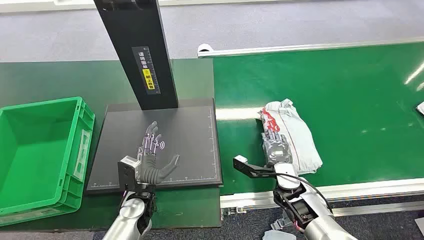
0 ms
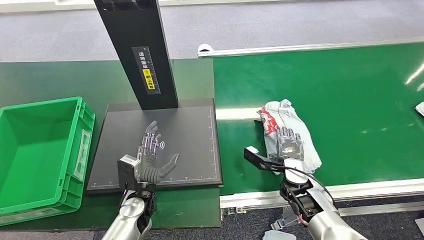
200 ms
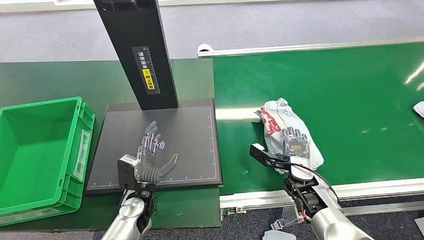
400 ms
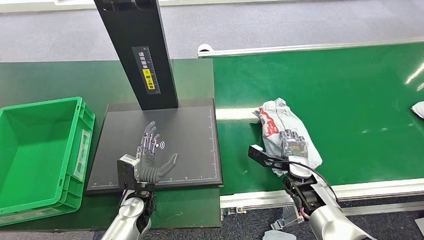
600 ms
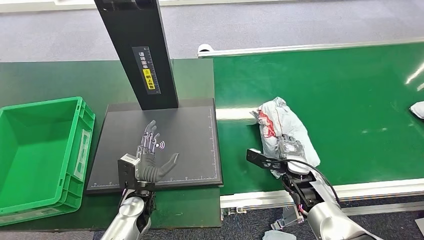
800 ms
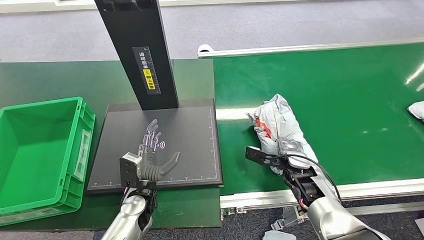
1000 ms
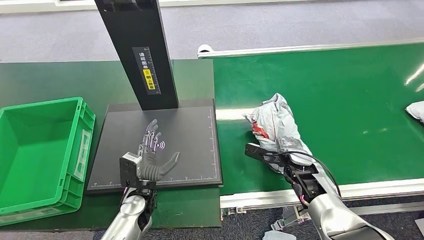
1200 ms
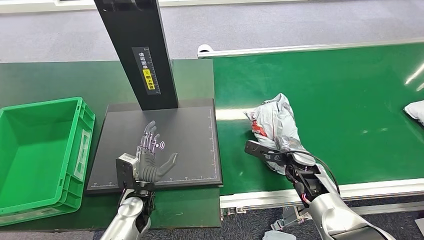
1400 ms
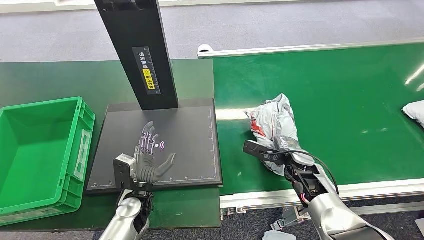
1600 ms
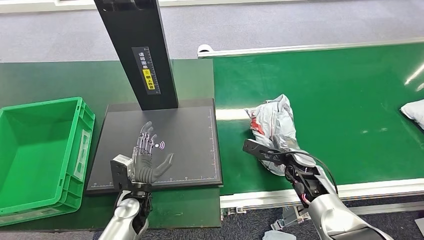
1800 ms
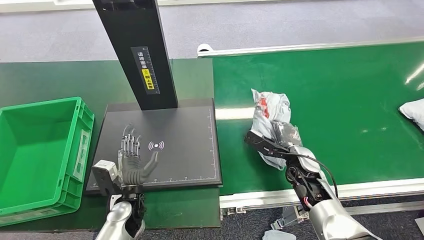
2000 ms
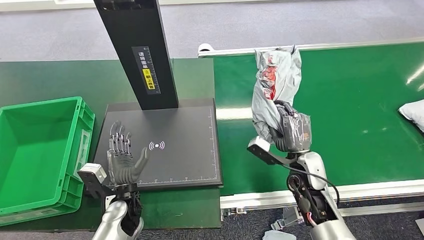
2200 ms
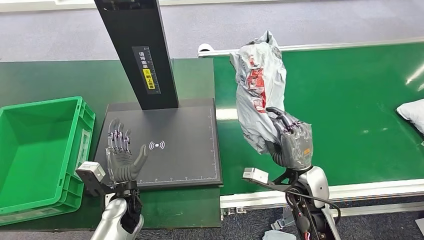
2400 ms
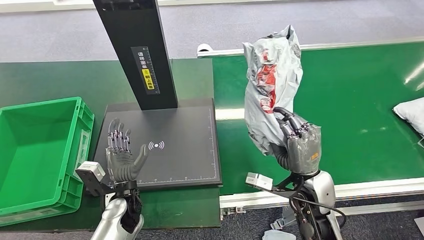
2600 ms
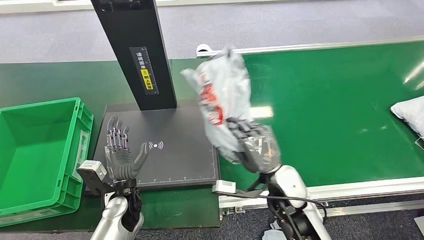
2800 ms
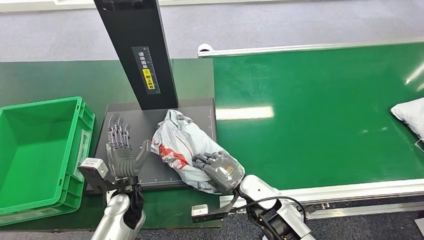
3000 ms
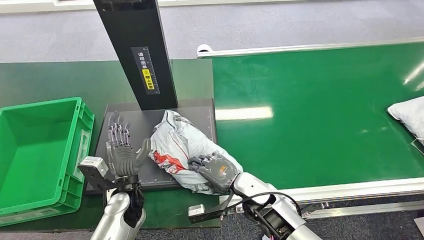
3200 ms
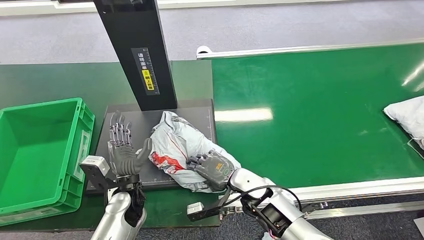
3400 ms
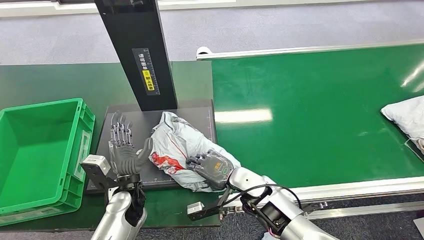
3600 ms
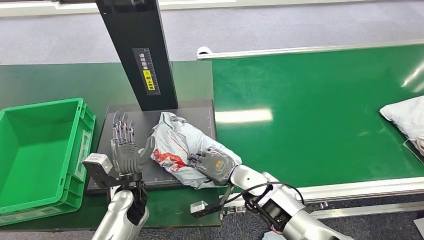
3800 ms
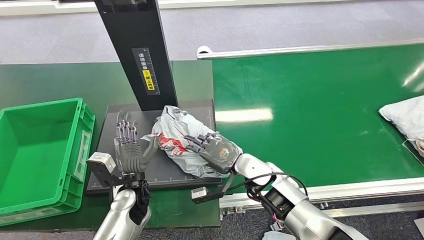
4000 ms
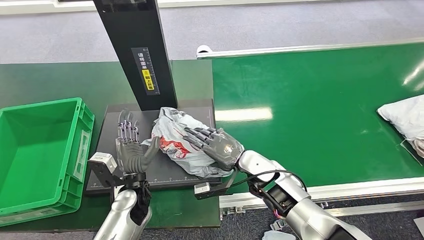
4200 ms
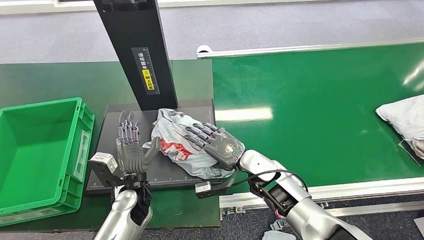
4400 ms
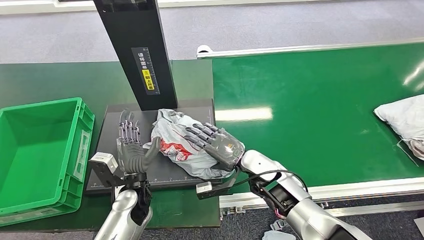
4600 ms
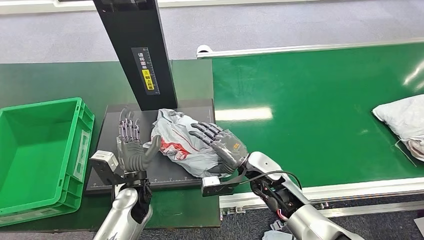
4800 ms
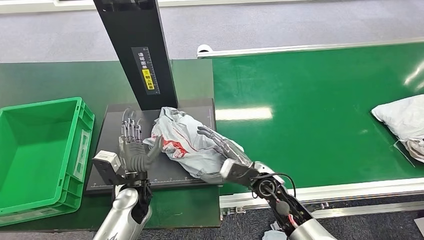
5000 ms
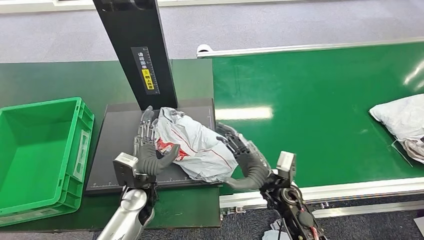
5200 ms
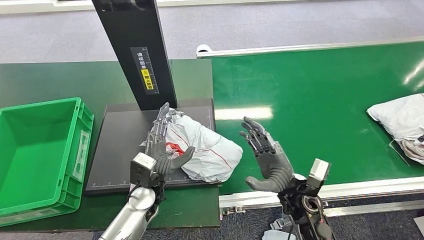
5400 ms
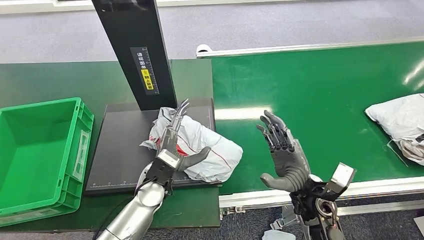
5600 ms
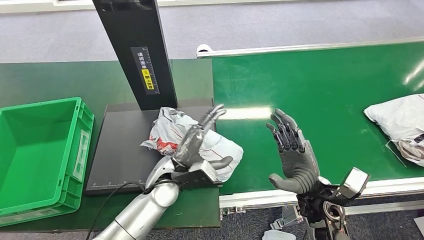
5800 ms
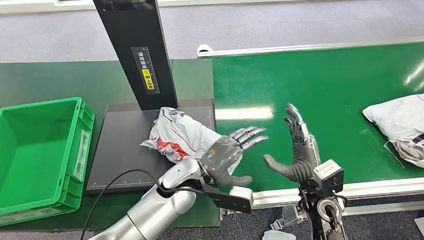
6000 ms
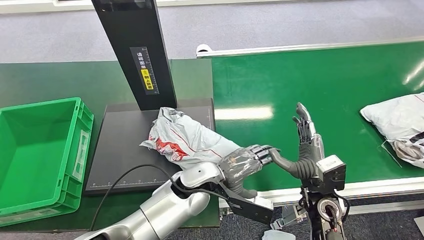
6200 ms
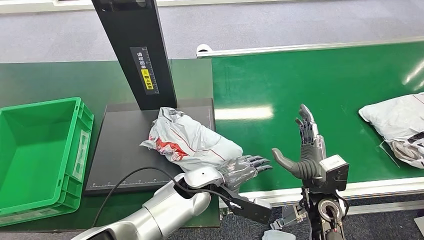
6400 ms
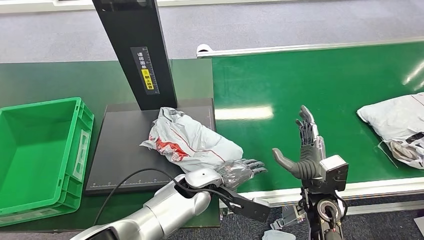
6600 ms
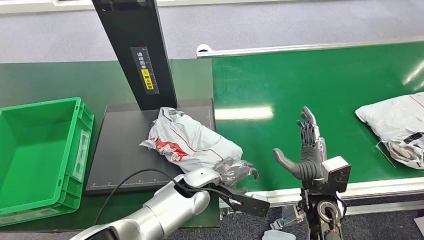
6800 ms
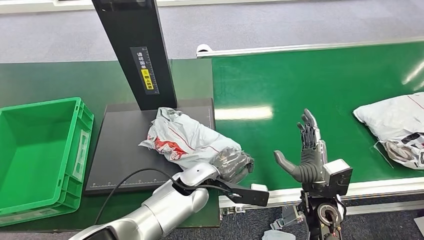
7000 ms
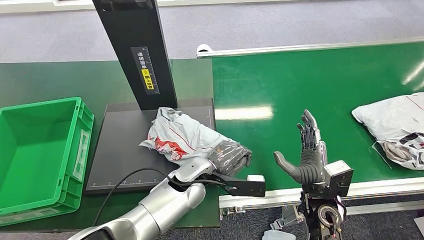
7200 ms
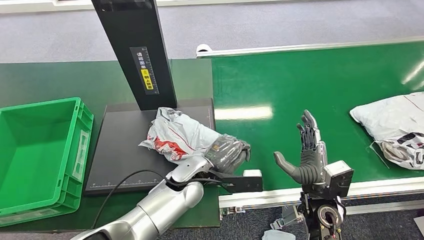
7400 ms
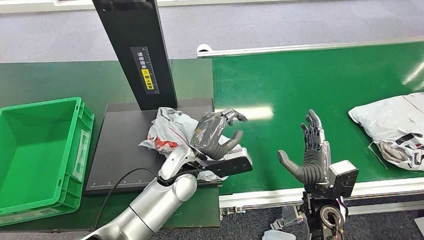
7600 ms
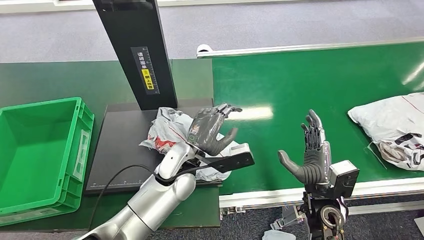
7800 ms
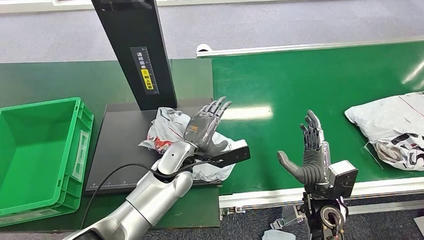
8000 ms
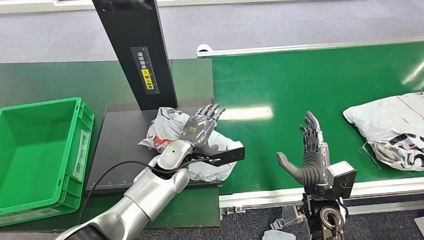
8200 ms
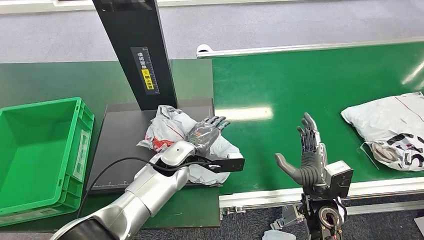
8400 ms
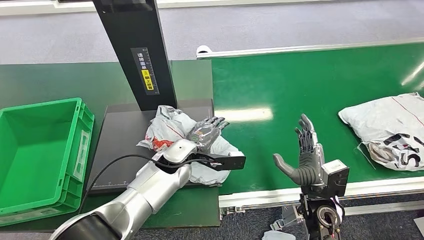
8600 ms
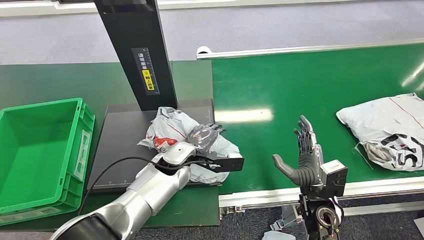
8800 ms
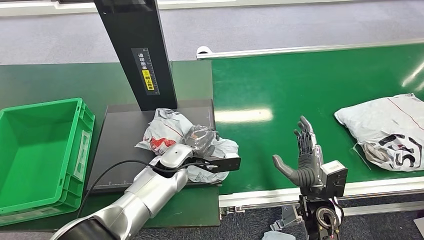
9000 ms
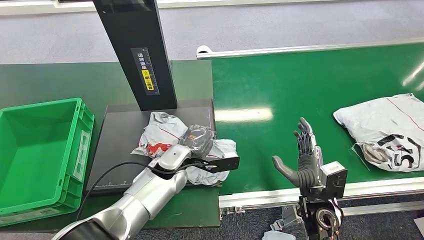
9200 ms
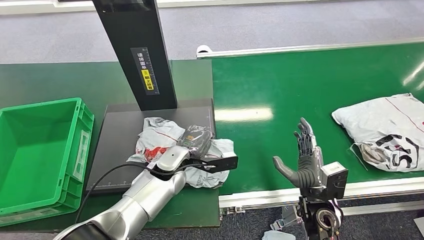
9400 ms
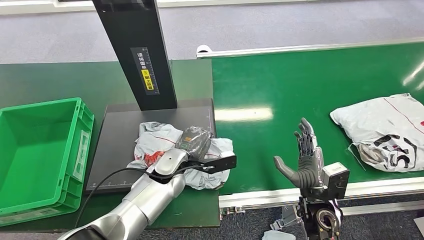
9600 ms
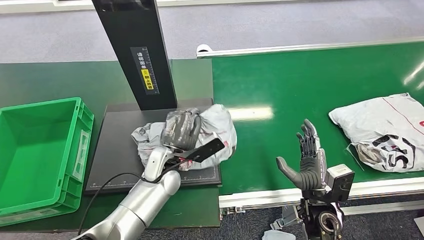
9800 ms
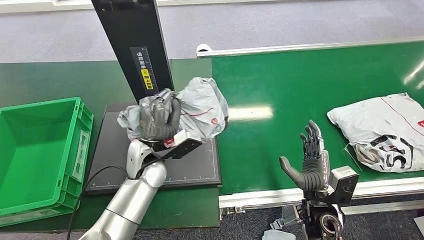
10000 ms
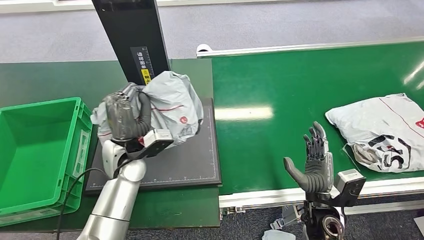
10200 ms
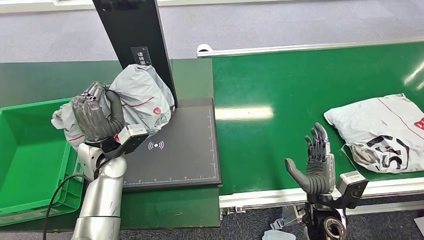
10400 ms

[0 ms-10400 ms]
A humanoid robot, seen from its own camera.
Step, 0 ms to 2400 ms: Pick up the package from the conveyor belt.
Step, 2600 ms to 5000 ms: Place the package onto the inbound machine.
Step, 5200 ms to 10200 ms: Pick up the package from the inbound machine.
4400 ms to 6000 ms: The right hand moves to the right and backward, approximately 15 cm. The left hand heads to the right and upward, covering approximately 15 cm.

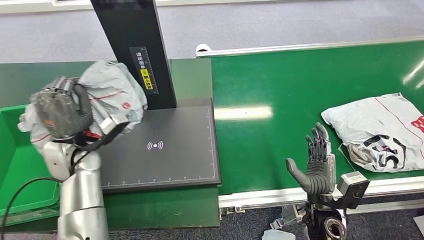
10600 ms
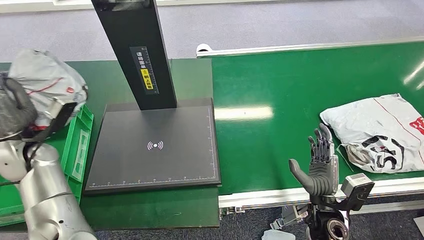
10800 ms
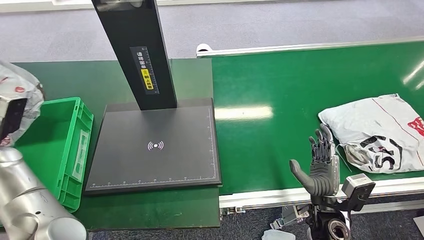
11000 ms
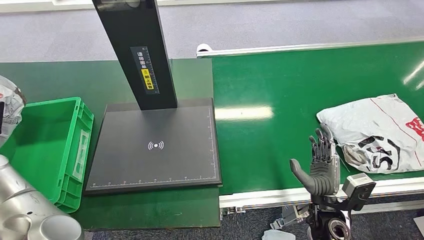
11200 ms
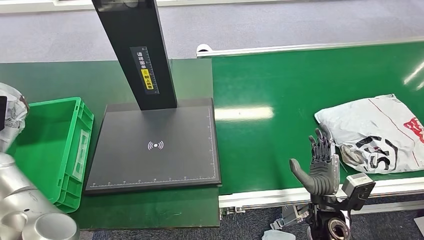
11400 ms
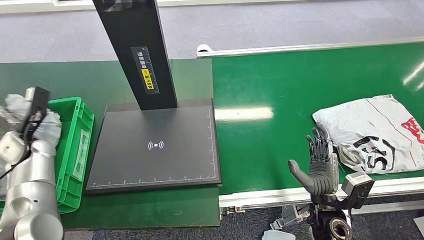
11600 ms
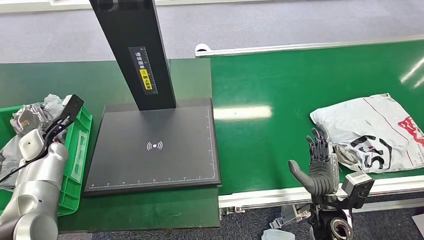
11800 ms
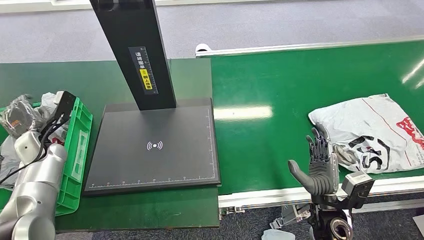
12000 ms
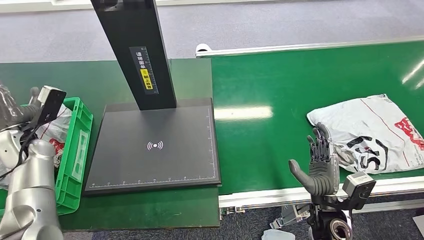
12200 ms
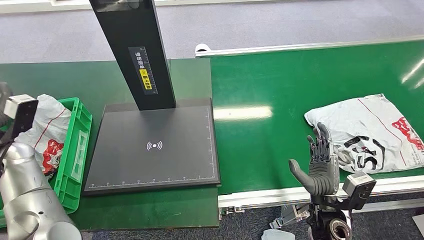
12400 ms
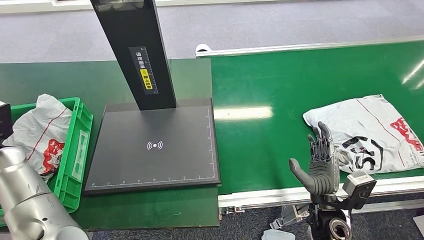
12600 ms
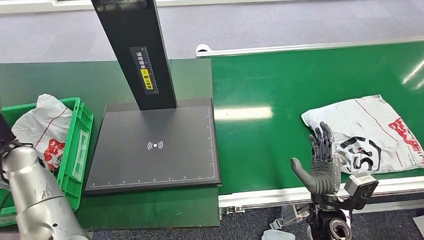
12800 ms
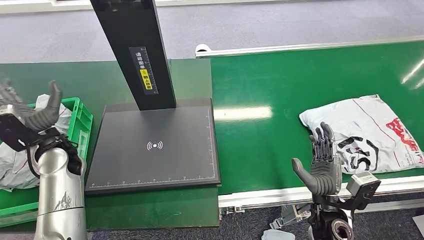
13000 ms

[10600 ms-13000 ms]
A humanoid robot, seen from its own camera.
Step, 10600 ms to 13000 ms: Place the package into the parcel locker.
11800 ms to 13000 ms: The left hand travels to the right and upward by approximately 10 cm.

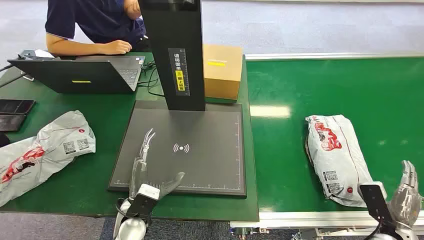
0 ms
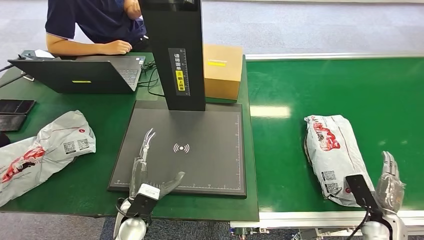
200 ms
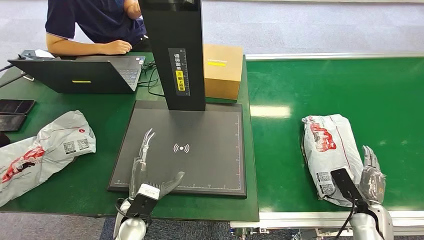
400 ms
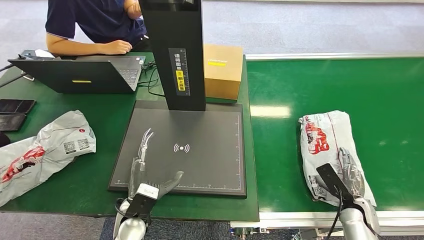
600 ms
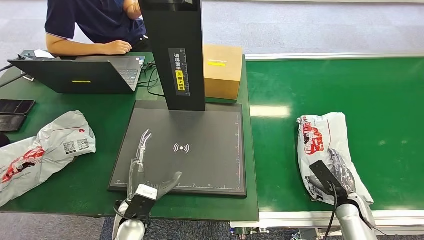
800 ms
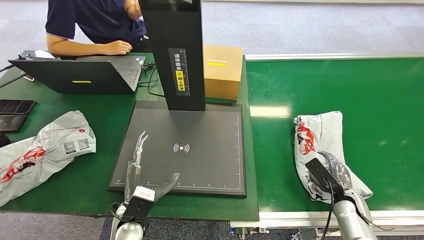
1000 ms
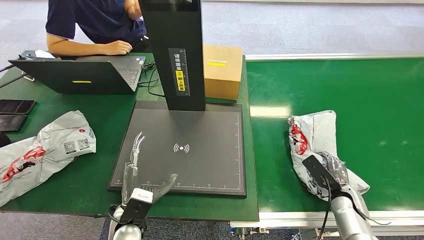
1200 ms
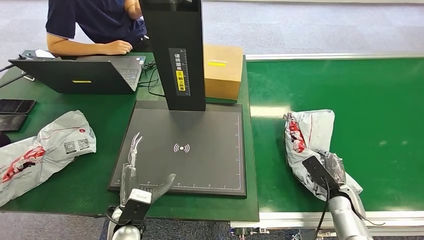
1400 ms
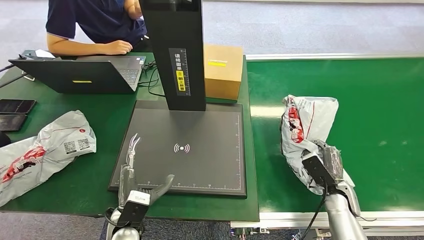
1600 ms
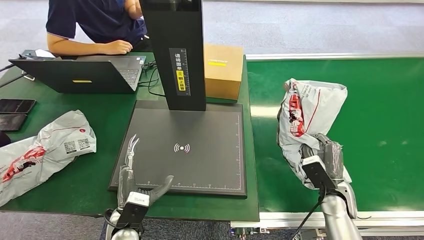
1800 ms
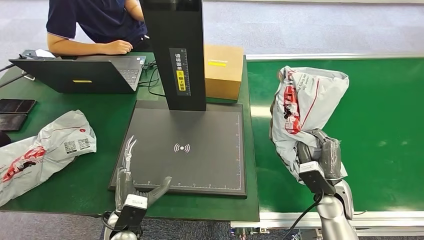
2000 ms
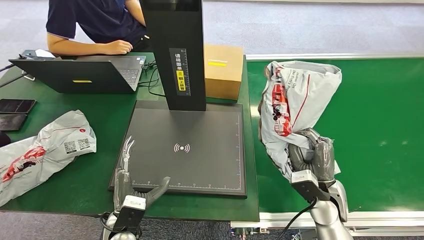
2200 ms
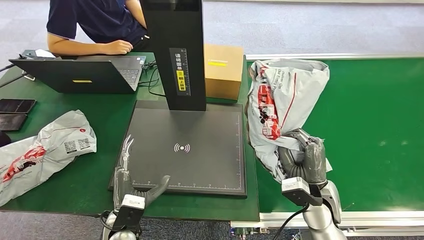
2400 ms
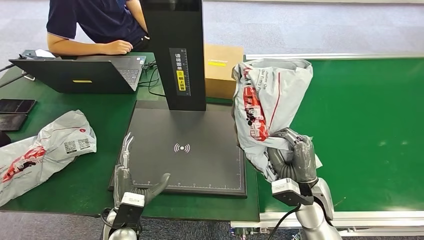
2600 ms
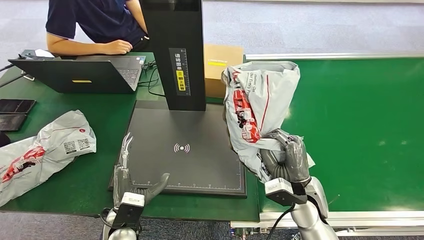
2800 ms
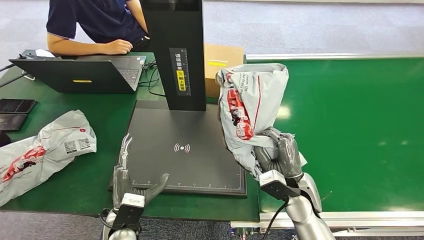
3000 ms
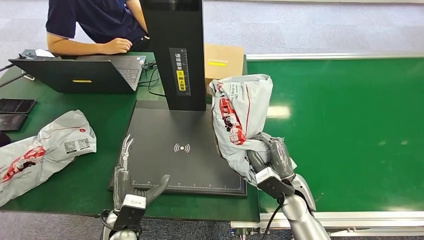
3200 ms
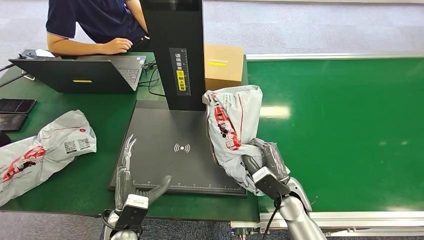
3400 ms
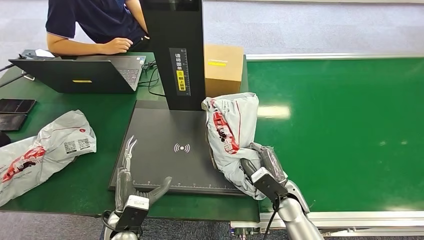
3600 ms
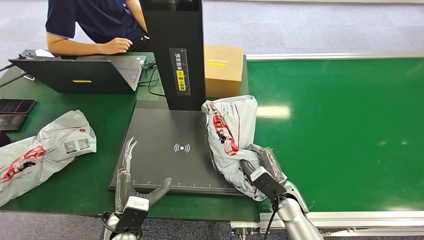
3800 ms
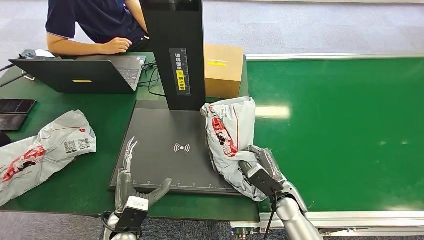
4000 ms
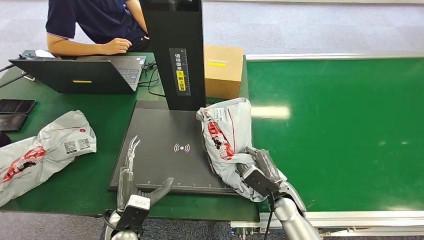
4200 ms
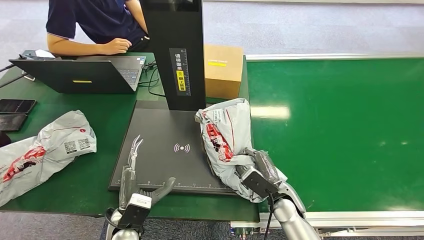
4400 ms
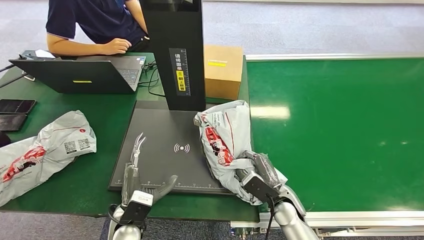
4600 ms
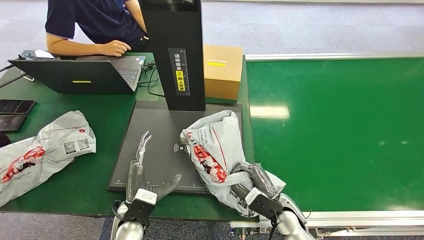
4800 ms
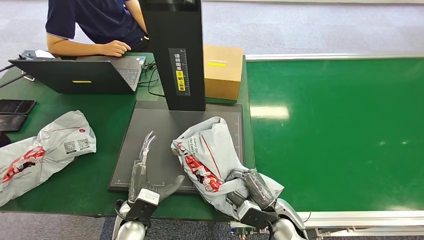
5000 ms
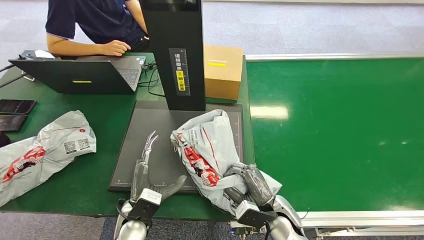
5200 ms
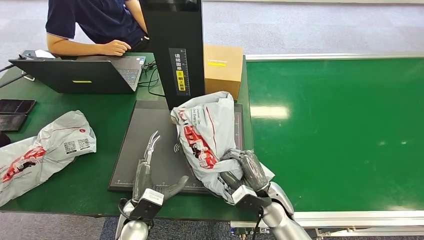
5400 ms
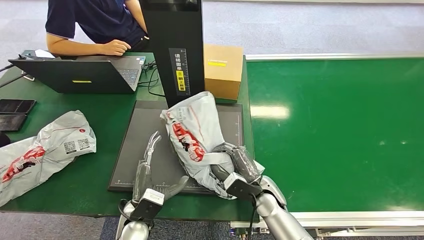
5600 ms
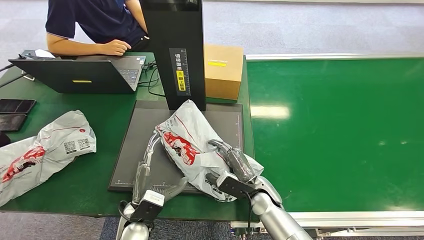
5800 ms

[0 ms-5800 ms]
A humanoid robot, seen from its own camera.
Step, 0 ms to 2000 ms: Pick up the package from the conveyor belt.
1400 ms to 2800 ms: The right hand is displaced to the left and upward by about 20 cm.
2800 ms to 4400 ms: The right hand heads downward, covering some 10 cm.
4400 ms to 5800 ms: The right hand travels to the left by about 5 cm.
